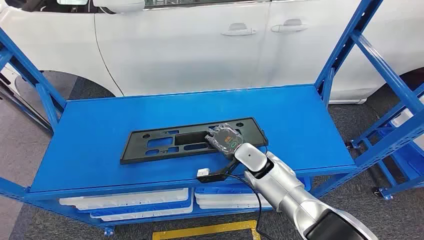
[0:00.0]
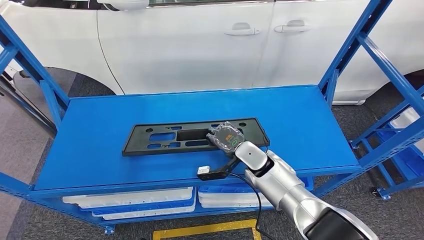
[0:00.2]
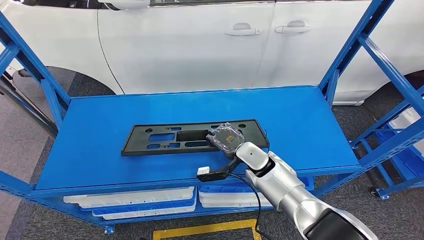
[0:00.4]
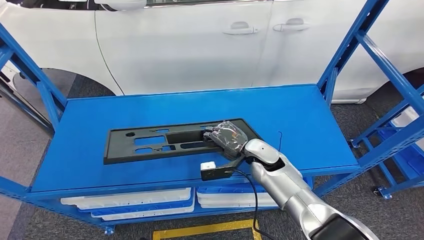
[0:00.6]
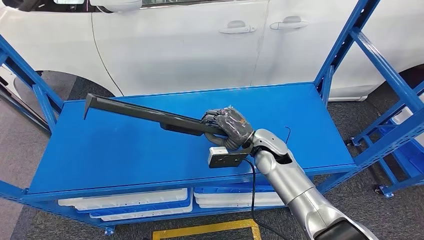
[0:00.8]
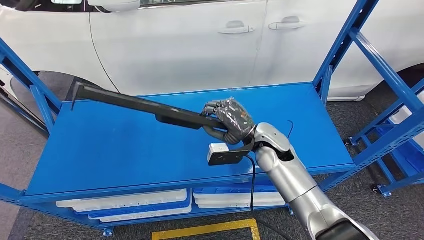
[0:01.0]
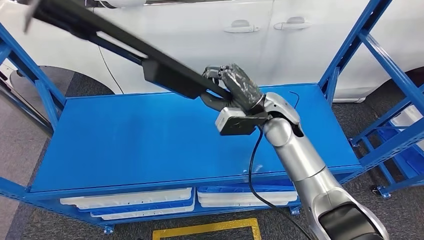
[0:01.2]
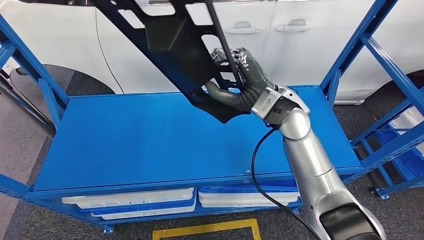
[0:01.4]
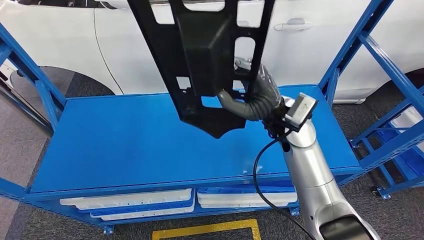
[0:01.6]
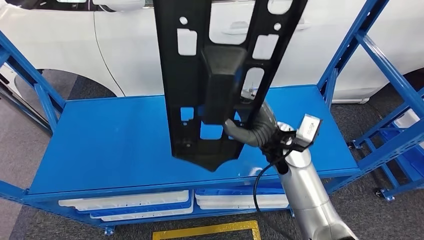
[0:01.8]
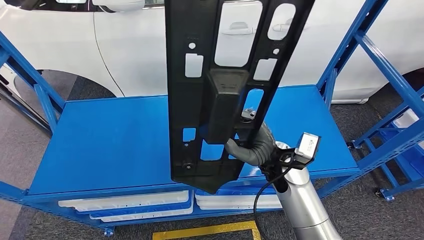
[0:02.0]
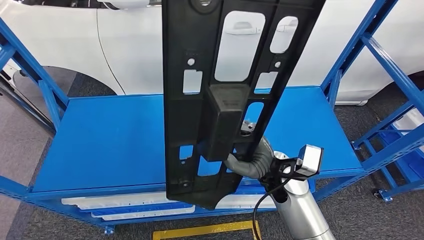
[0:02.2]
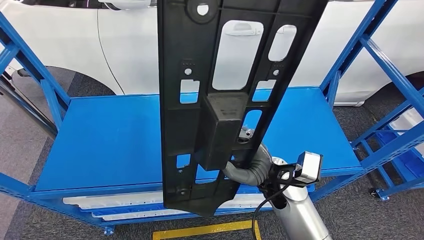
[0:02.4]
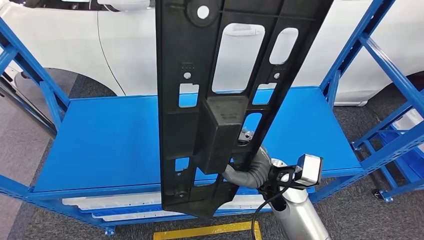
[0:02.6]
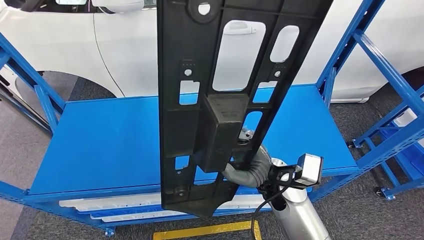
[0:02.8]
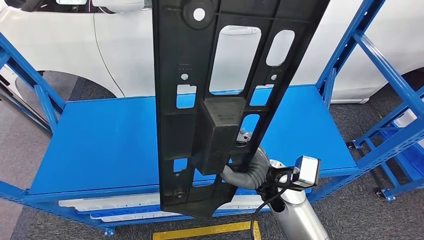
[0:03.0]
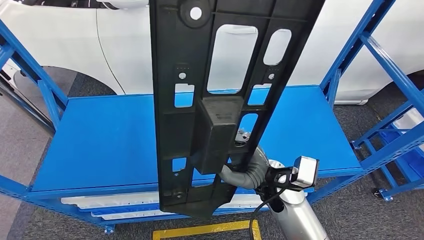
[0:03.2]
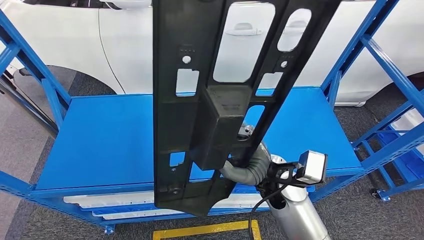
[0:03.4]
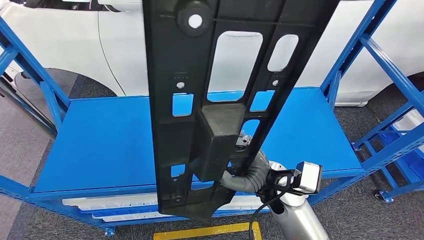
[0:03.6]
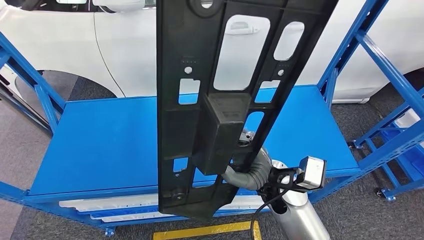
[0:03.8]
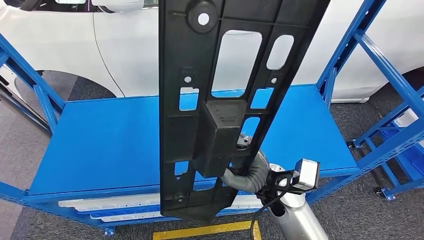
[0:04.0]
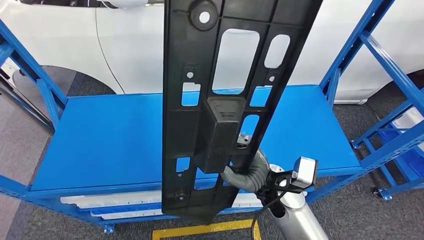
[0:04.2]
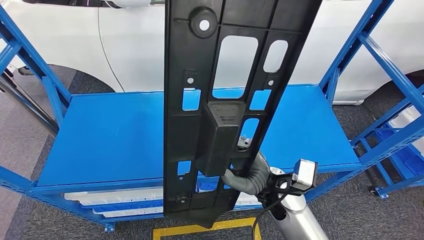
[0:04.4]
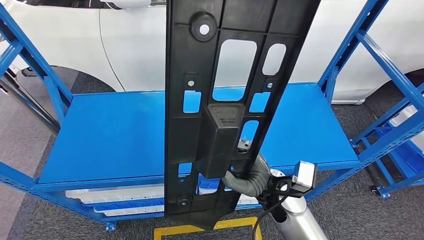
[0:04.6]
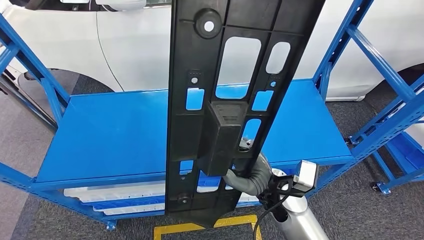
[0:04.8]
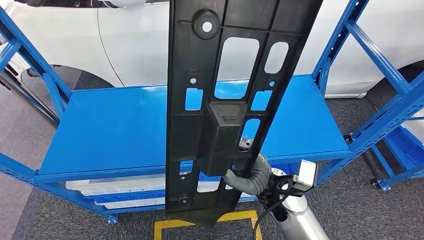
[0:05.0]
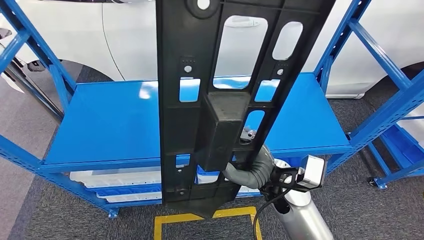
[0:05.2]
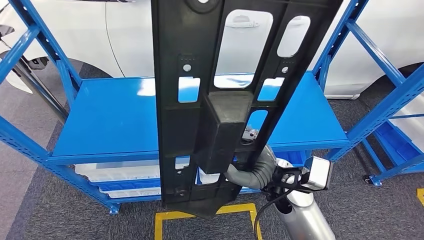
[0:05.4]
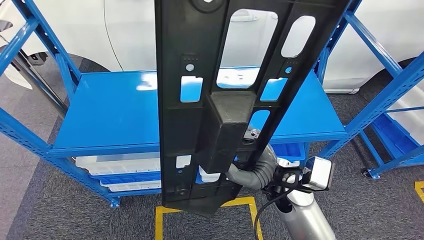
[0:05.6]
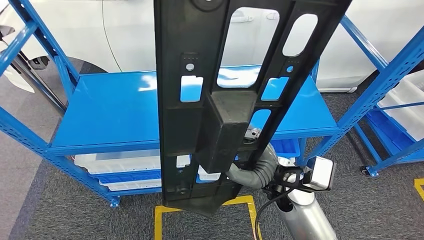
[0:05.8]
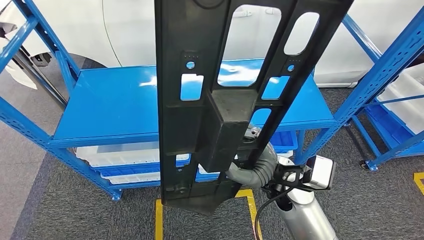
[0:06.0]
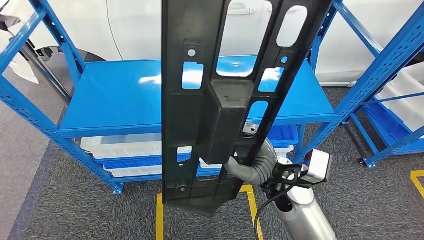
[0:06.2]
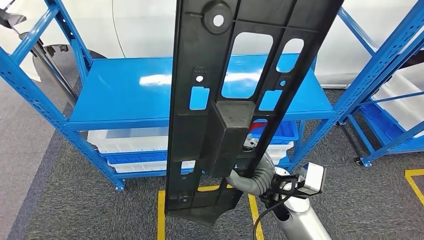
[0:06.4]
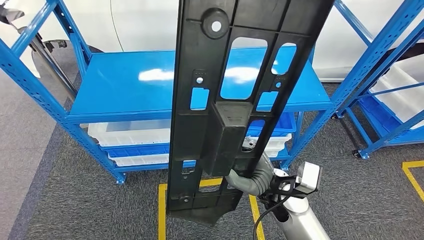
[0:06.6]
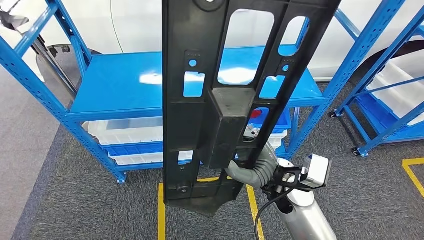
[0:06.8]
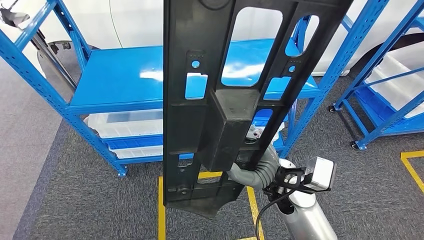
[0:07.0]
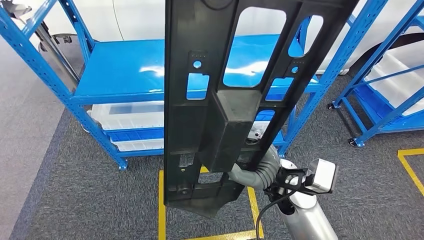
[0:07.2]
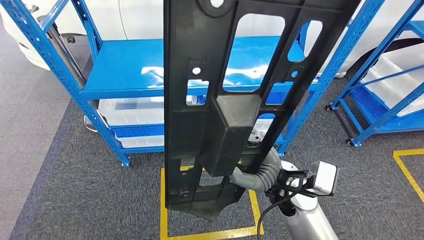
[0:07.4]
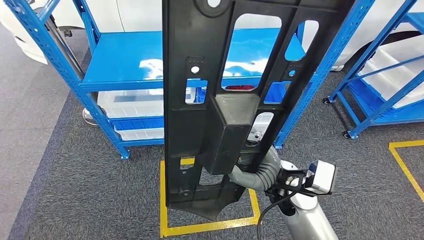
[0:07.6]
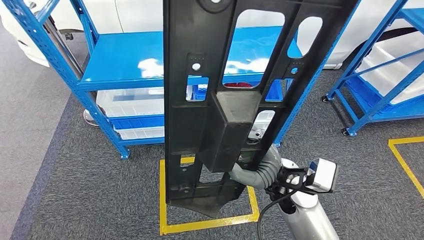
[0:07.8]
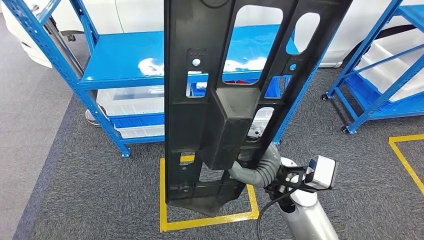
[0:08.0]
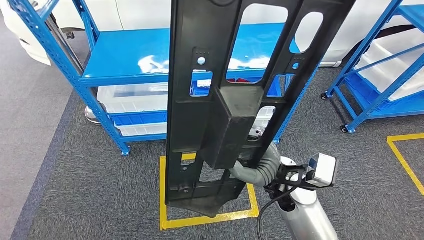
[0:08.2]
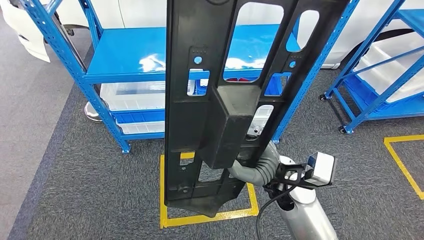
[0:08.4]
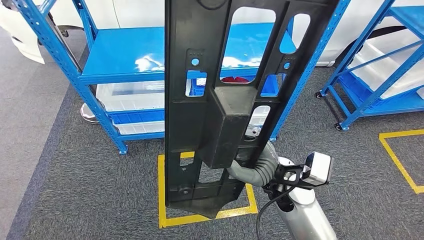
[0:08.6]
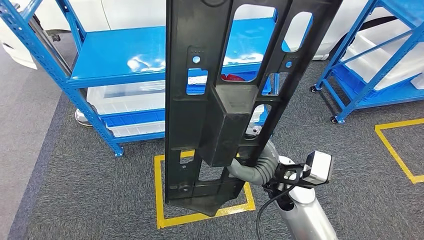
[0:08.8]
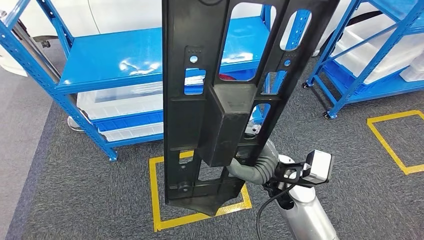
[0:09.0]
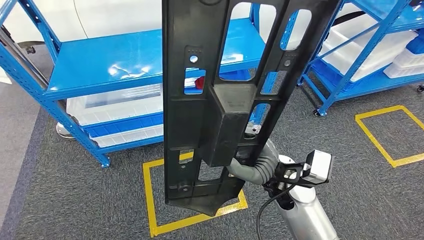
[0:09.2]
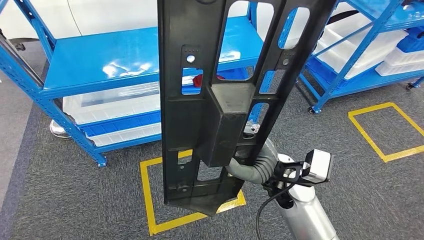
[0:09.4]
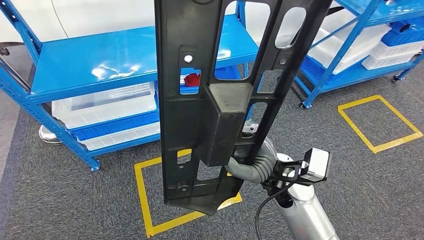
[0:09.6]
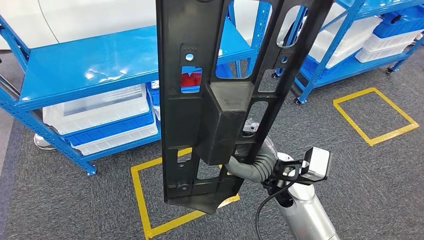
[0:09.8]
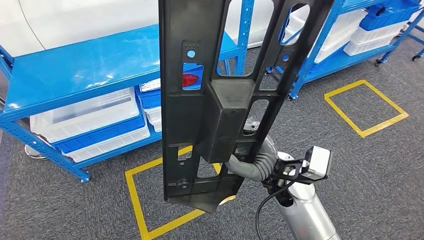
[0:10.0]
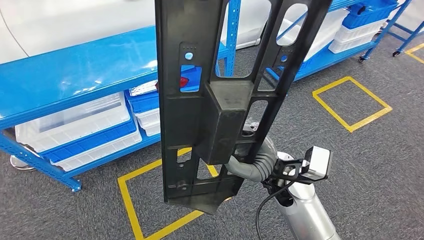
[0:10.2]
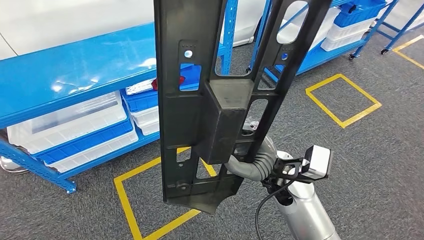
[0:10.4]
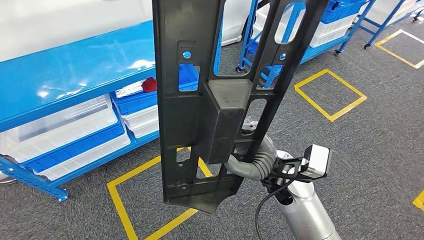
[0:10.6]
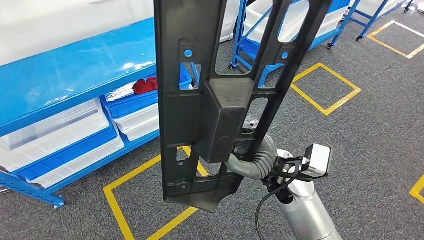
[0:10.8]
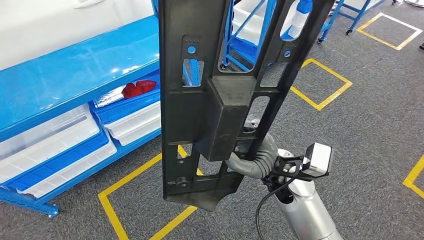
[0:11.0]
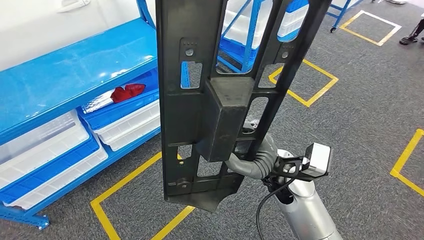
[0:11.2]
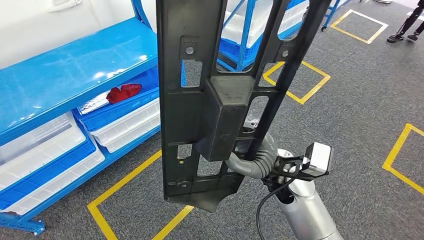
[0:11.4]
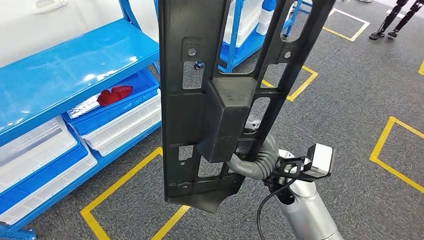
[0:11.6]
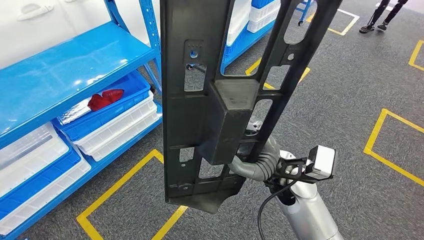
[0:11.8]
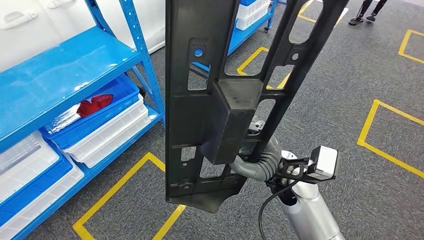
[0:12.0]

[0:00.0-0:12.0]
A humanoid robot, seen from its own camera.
Step, 0:00.0 to 0:03.4: Pick up the large material from the shelf.

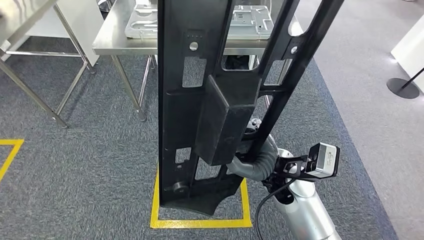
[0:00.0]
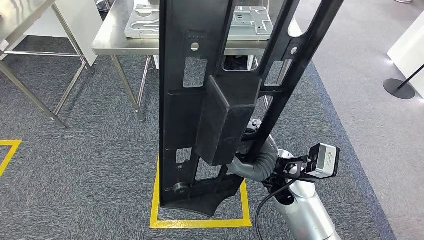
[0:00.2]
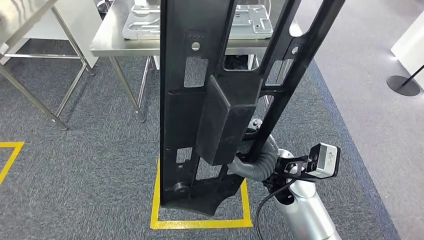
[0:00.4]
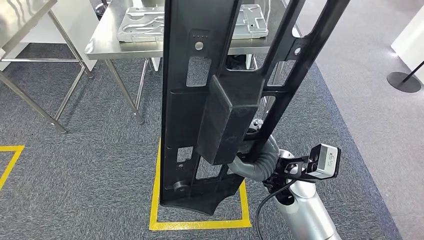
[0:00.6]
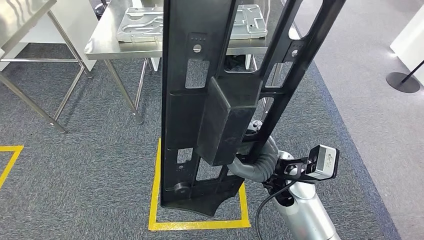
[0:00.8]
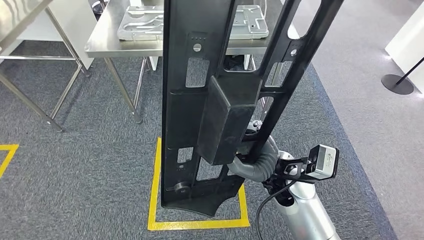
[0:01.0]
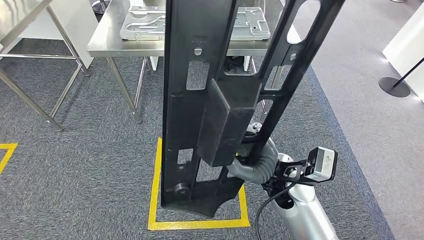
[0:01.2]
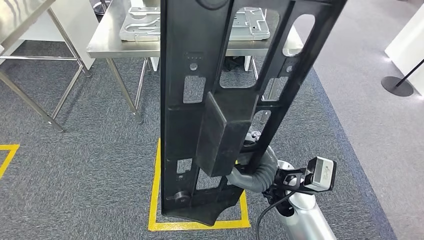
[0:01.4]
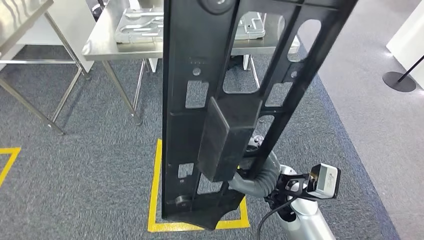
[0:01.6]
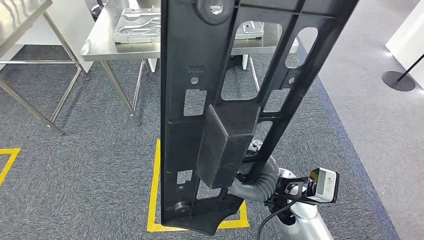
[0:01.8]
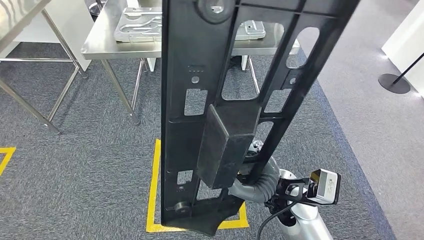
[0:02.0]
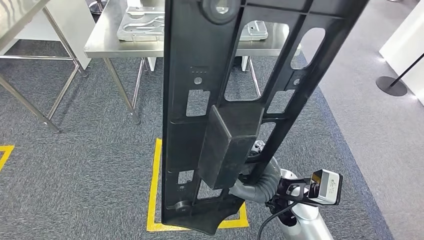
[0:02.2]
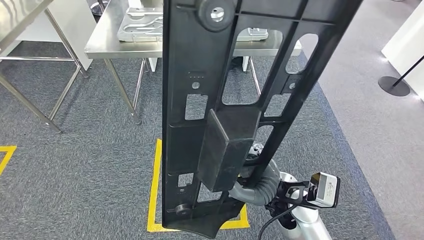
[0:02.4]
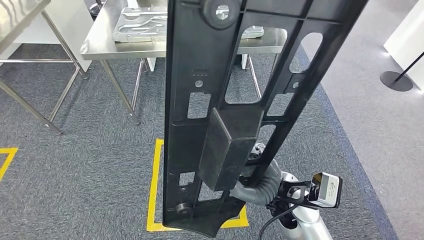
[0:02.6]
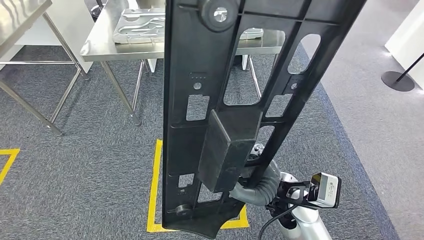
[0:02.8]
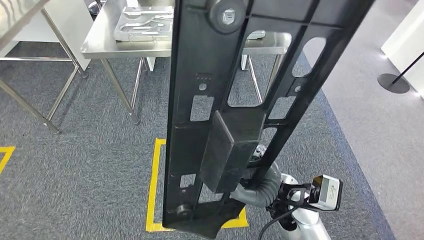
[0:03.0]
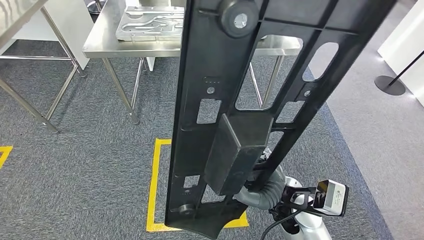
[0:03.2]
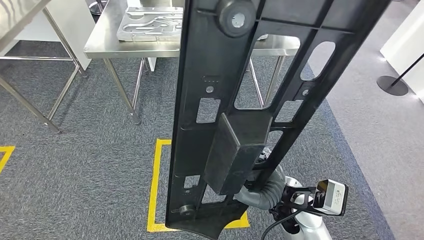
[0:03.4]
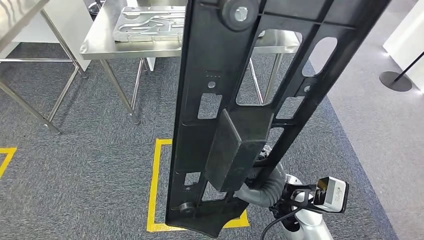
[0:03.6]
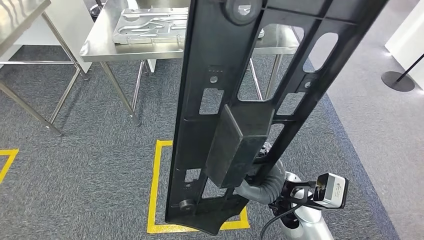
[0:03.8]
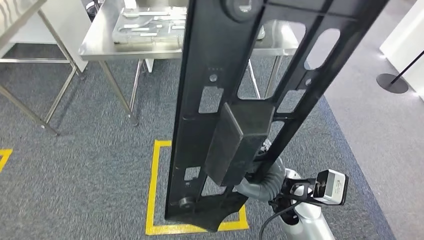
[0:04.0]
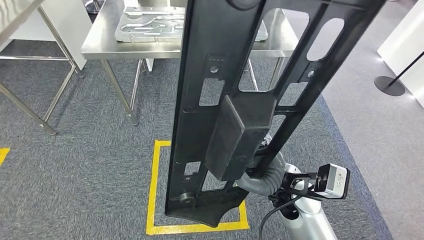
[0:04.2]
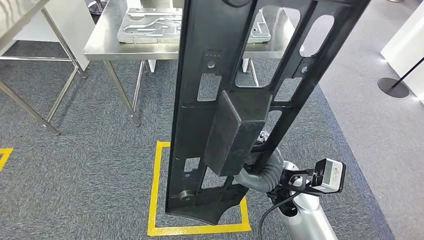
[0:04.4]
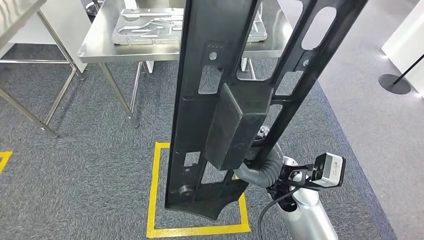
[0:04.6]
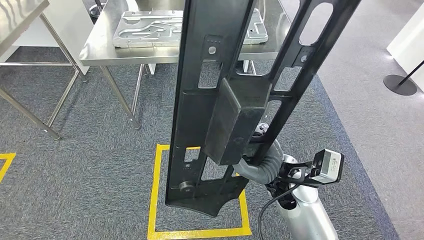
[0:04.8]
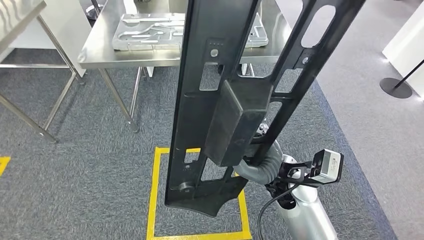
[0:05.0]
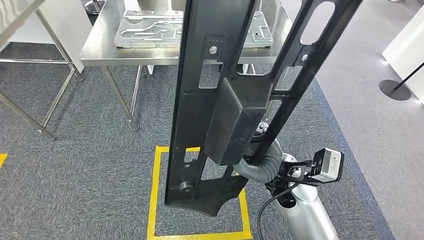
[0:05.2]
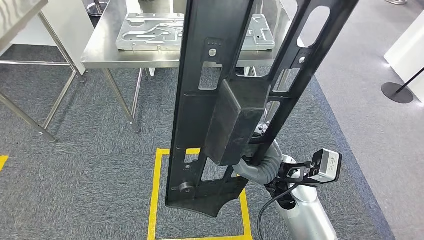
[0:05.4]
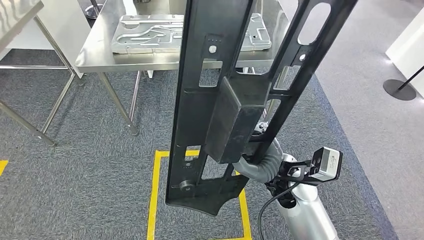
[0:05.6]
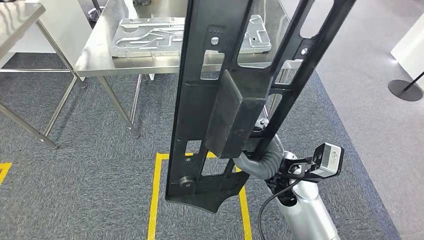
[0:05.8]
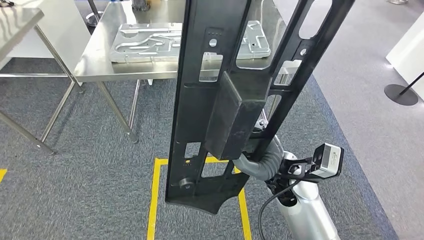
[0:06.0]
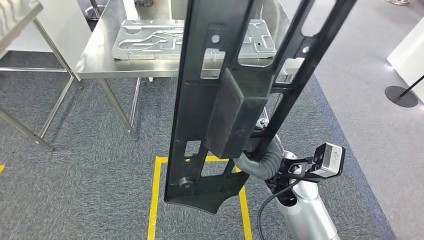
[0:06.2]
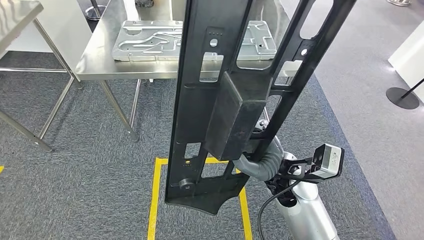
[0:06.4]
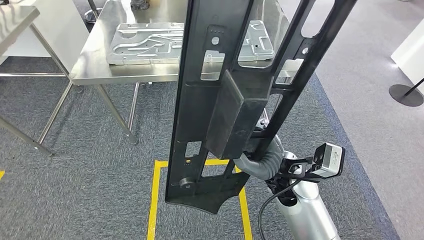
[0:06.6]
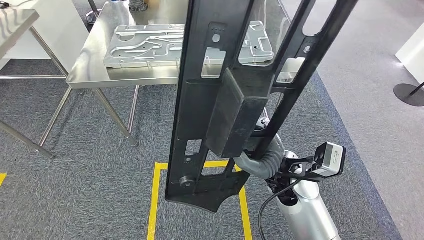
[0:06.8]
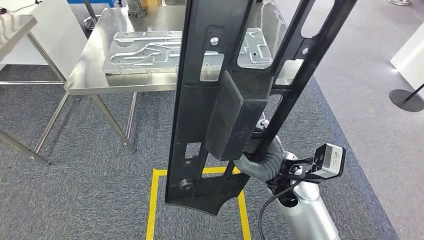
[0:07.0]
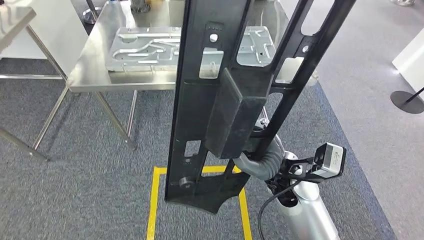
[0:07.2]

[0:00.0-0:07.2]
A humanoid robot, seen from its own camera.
0:05.8 to 0:07.2: Neither hand changes place.
